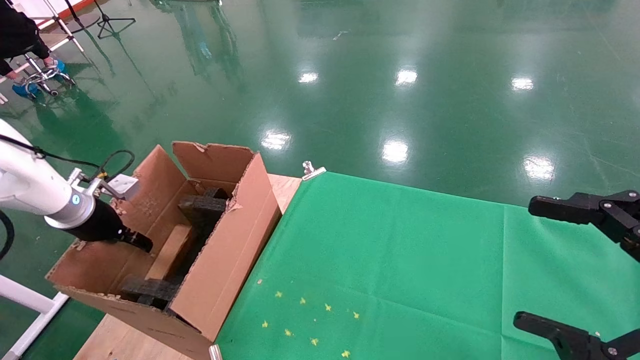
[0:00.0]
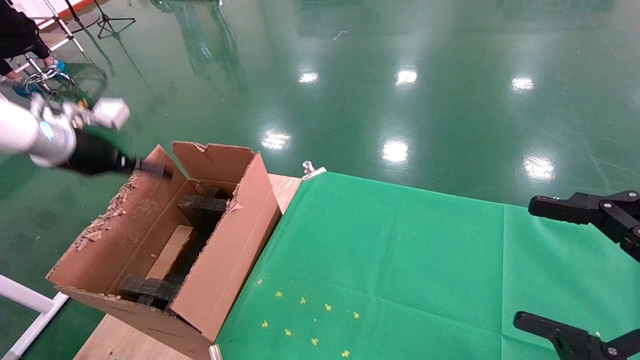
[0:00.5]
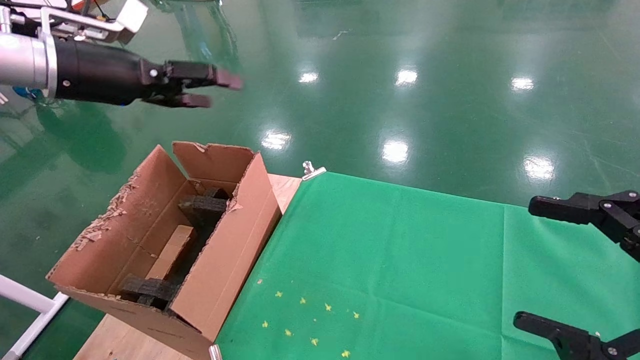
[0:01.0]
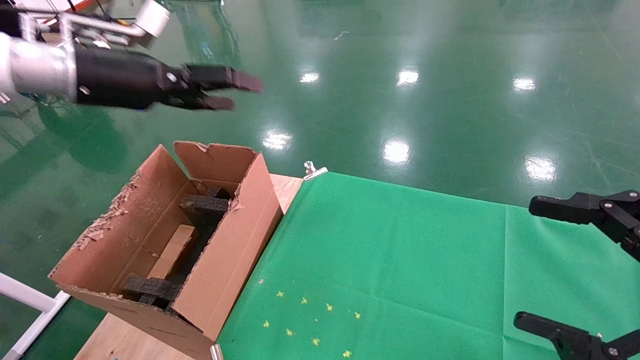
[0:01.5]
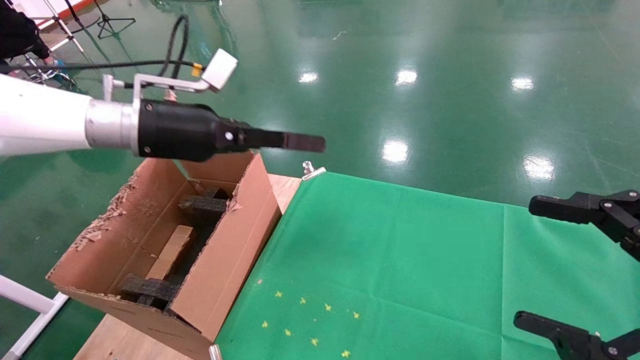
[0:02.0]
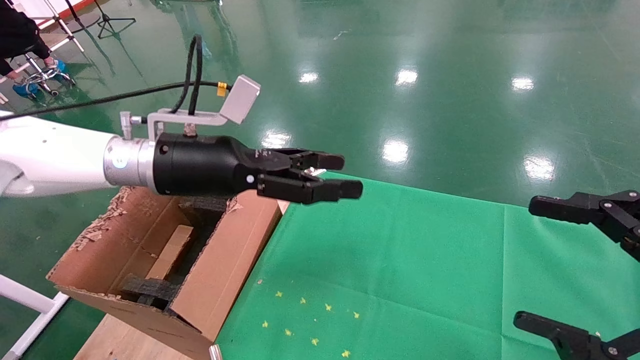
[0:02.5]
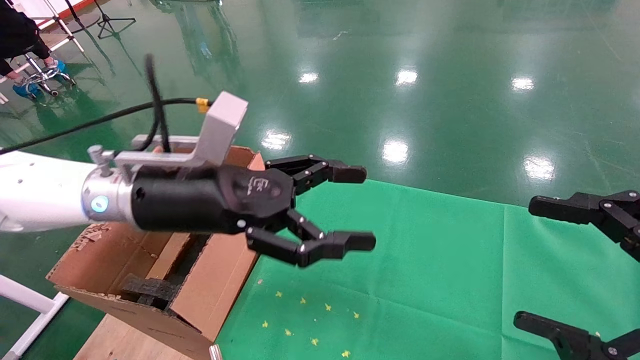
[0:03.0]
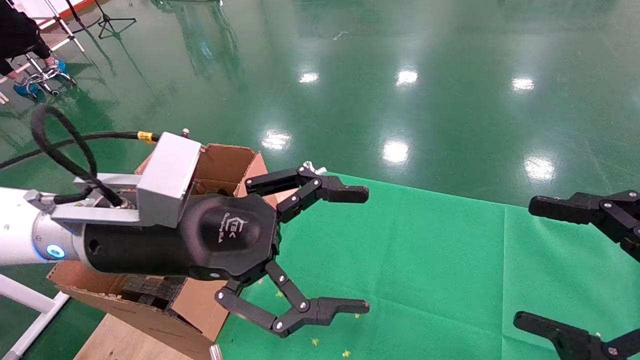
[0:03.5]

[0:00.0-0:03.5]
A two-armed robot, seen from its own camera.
Task of the whole recording: using a robotic arm to pick up a cardboard box and palace it the carton.
0:00.0 to 0:02.0: The left gripper travels to the right and upward by some 25 cm, and opens up.
0:02.0 to 0:03.5: The left gripper is displaced backward, to the right and downward by some 15 cm.
